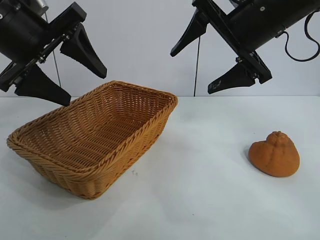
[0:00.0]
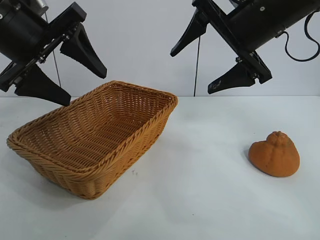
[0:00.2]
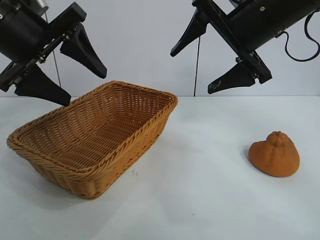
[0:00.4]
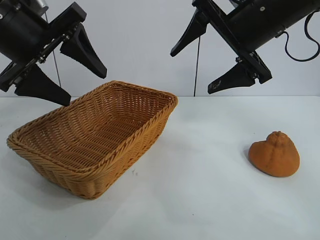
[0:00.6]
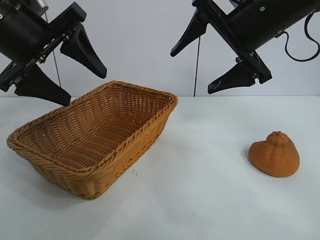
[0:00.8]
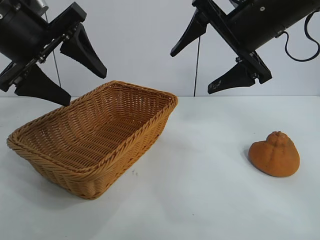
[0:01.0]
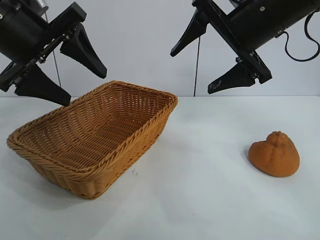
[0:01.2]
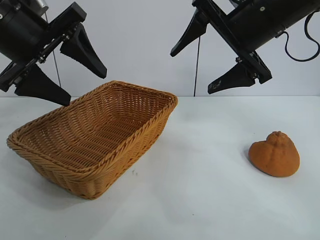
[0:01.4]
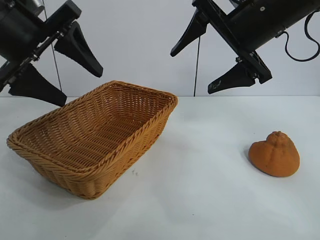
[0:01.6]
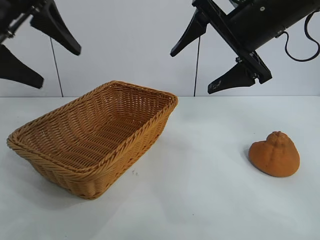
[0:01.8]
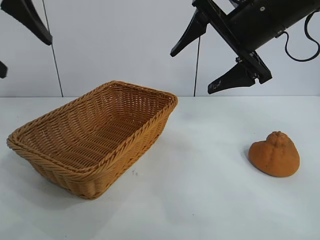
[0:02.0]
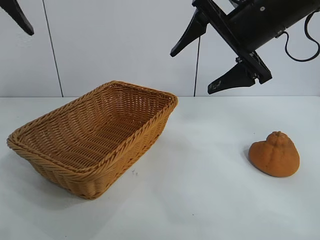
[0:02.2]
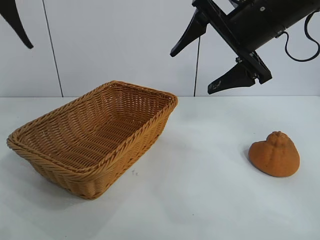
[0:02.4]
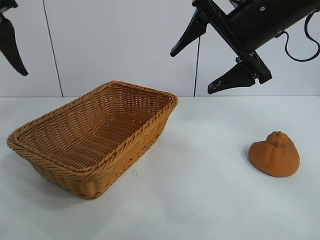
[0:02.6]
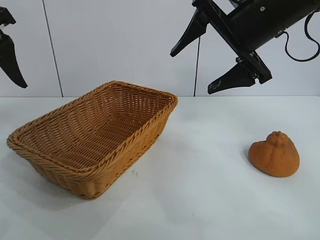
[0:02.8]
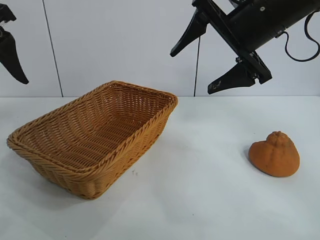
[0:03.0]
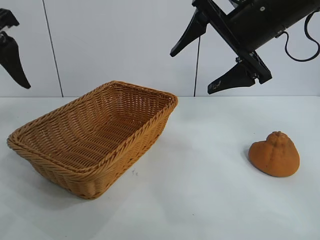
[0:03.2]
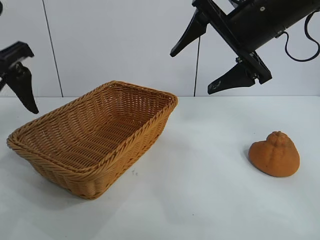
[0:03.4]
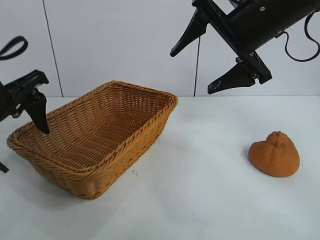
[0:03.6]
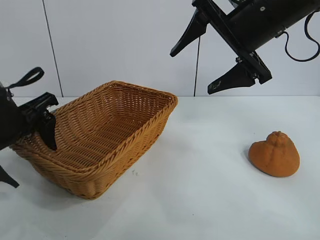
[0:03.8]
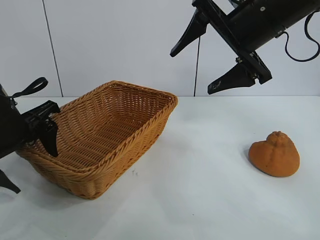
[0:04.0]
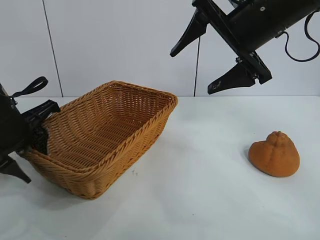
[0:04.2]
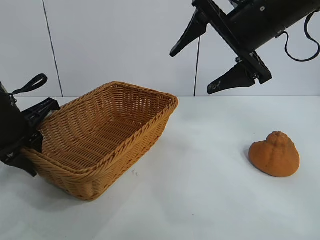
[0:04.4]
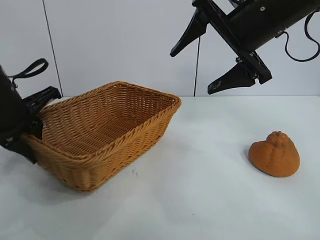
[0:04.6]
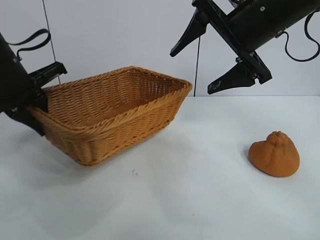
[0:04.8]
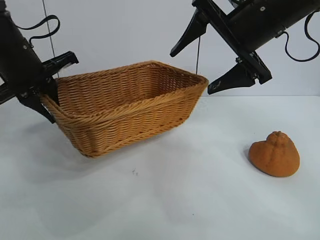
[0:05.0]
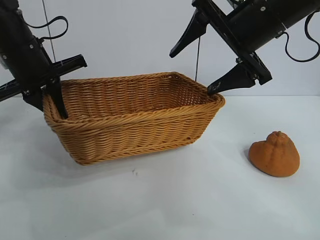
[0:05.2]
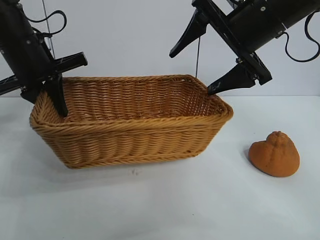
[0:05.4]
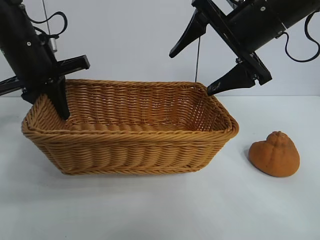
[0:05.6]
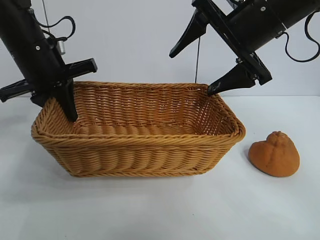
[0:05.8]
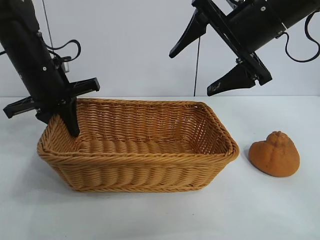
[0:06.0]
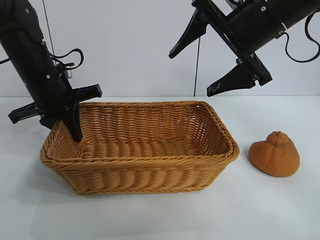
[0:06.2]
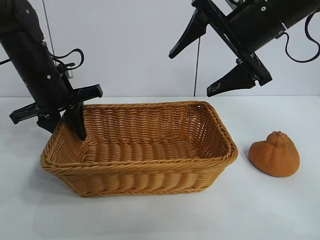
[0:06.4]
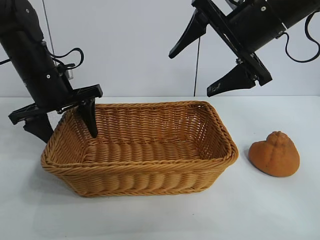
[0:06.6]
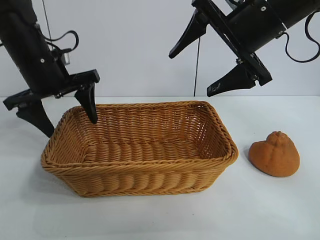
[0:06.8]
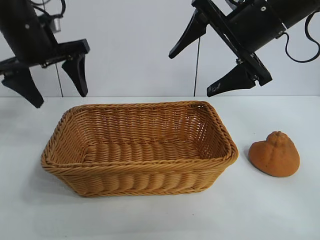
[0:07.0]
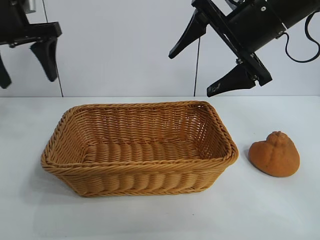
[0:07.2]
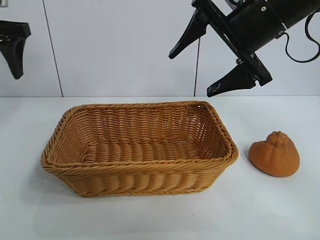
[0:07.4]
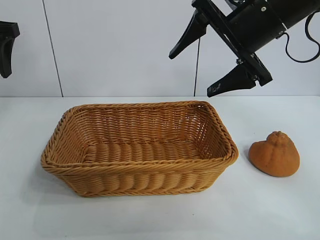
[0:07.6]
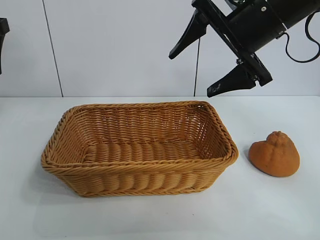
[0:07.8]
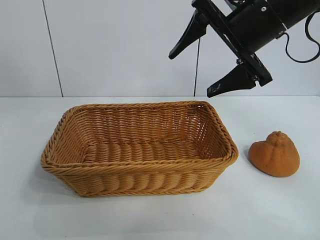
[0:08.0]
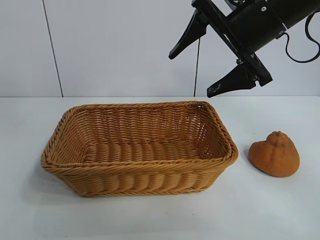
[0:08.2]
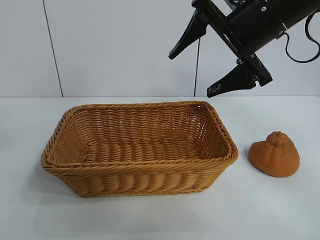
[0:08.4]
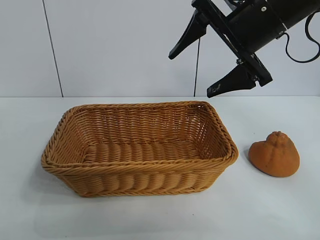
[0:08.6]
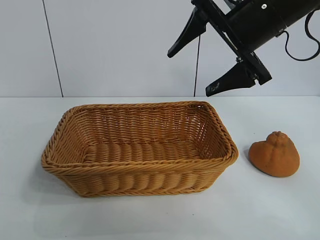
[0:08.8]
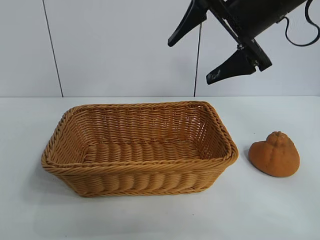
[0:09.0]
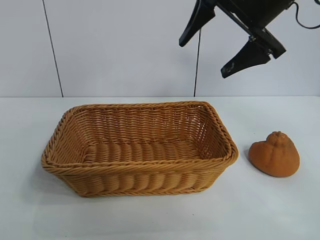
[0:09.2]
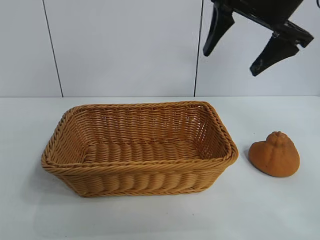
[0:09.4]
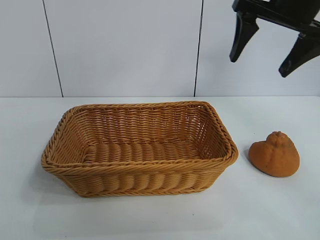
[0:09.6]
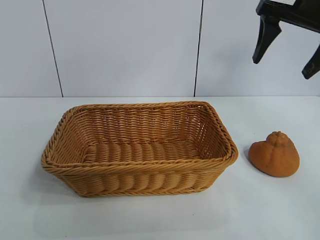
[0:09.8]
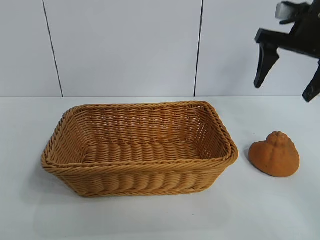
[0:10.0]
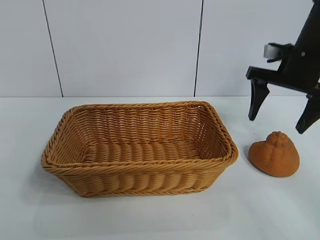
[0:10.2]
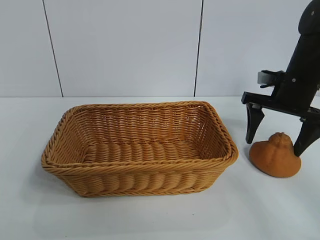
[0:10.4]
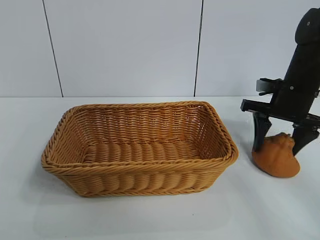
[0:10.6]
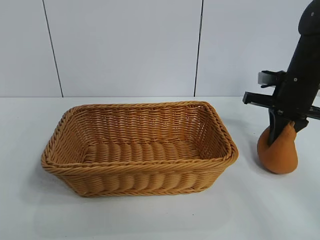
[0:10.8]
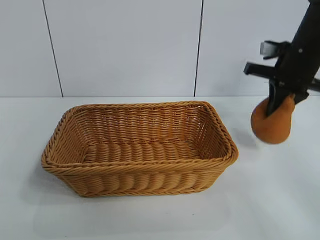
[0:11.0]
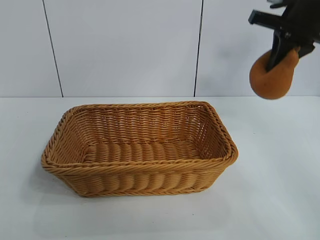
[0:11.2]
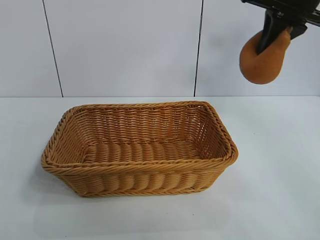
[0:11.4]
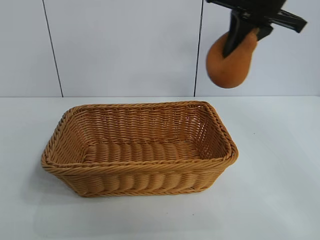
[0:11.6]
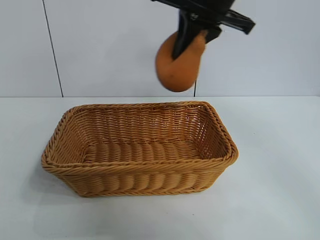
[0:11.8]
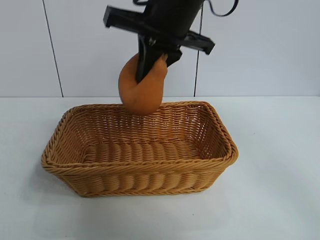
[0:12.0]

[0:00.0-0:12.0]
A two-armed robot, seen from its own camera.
Task of the whole recording: pick up the orange and put it into the basket.
Step, 0:01.6 to 0:04.2: Grasp the basket with left gripper.
Step, 0:04.4 to 0:06.6: Place the basket in the center of view with left gripper.
Step, 0:06.8 to 0:10.6: Grasp the orange with right gripper.
